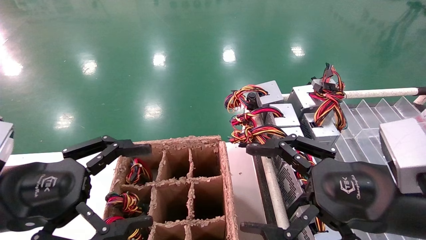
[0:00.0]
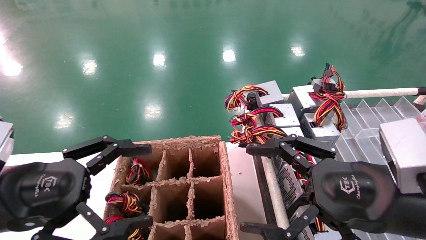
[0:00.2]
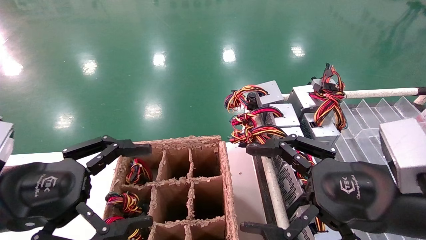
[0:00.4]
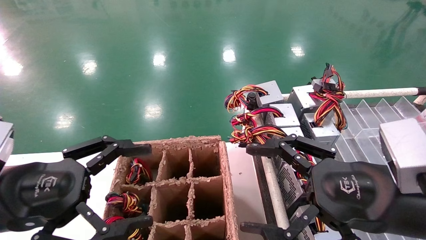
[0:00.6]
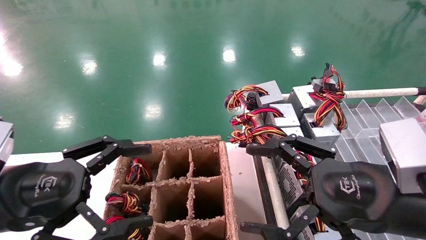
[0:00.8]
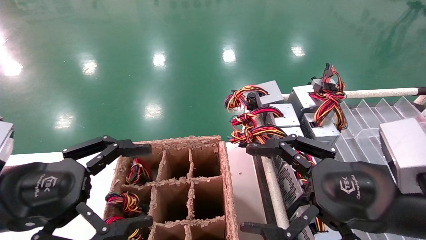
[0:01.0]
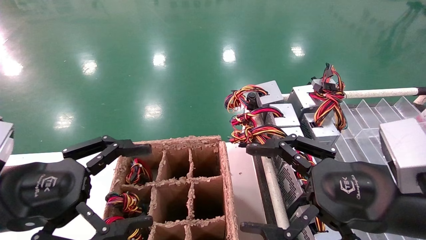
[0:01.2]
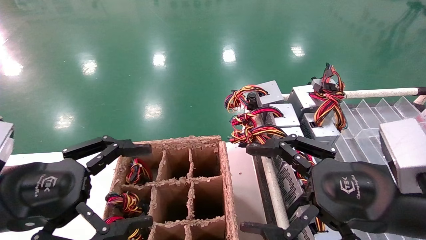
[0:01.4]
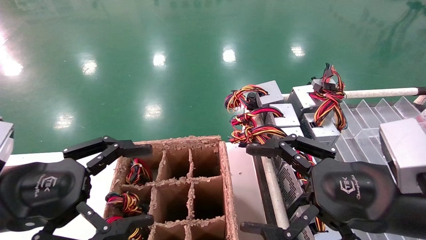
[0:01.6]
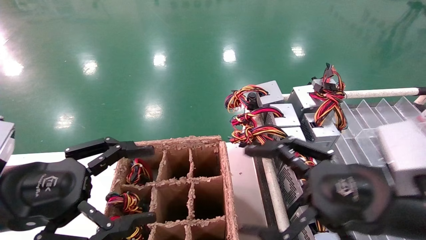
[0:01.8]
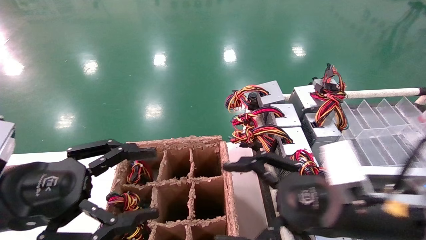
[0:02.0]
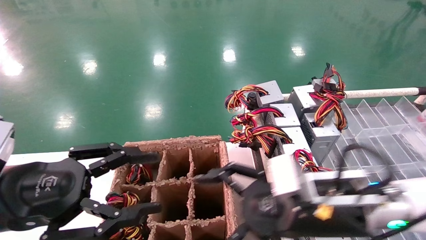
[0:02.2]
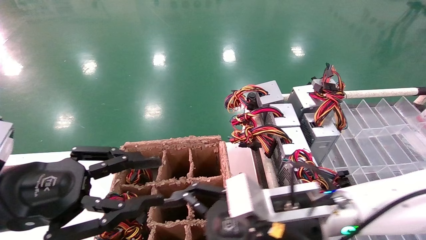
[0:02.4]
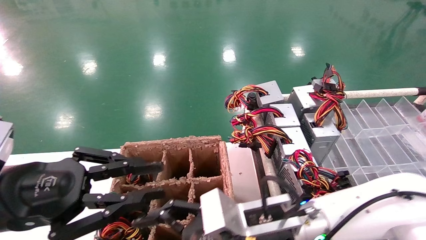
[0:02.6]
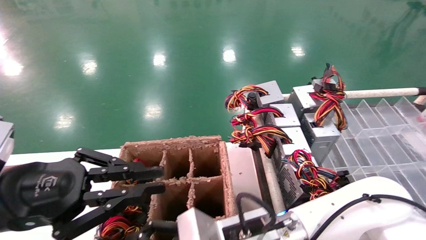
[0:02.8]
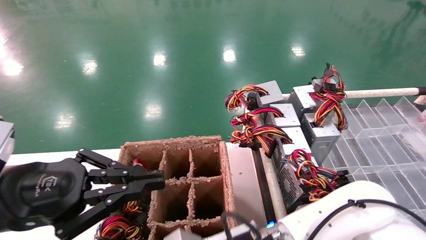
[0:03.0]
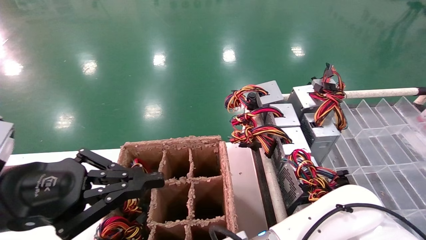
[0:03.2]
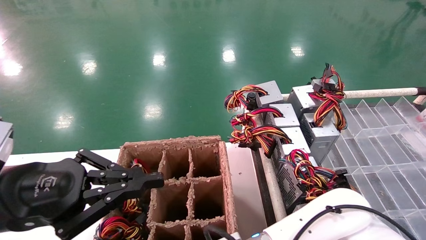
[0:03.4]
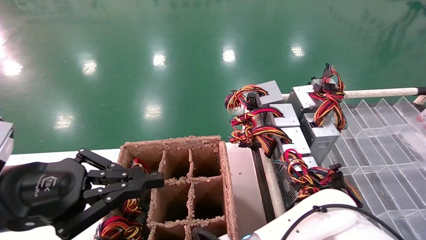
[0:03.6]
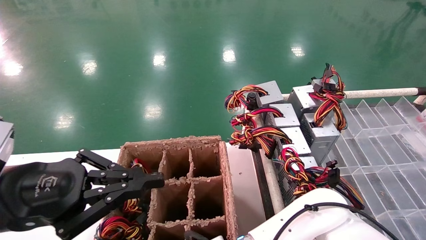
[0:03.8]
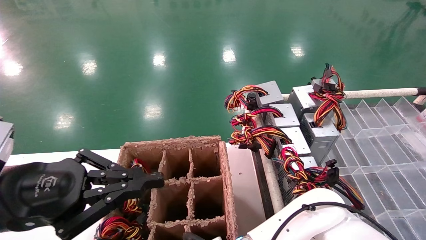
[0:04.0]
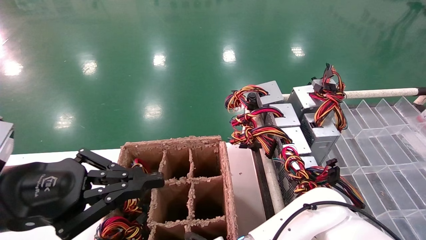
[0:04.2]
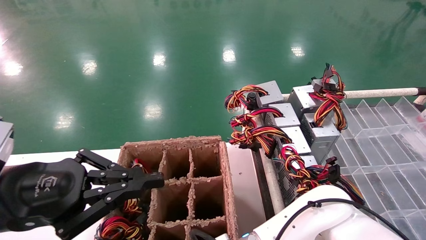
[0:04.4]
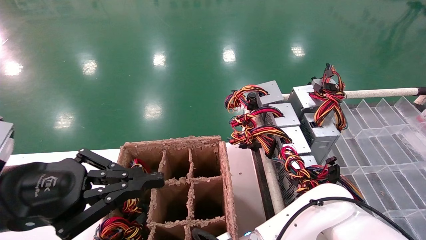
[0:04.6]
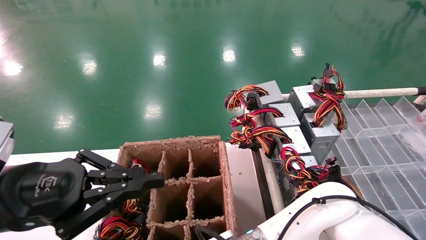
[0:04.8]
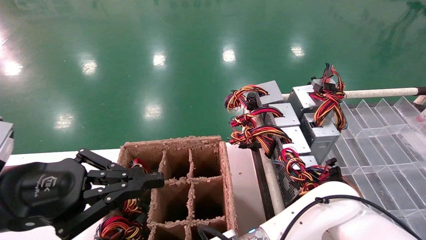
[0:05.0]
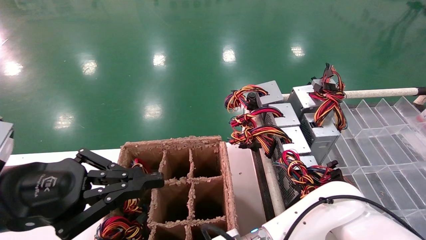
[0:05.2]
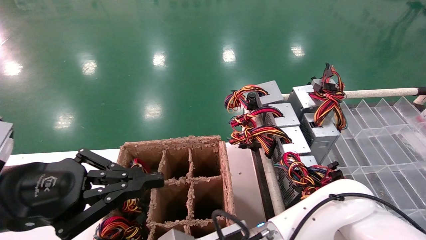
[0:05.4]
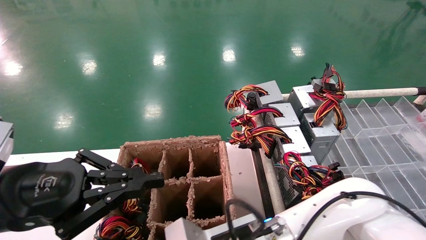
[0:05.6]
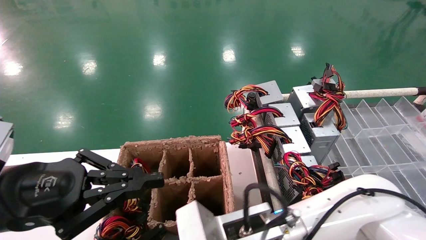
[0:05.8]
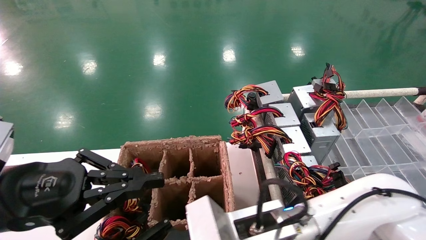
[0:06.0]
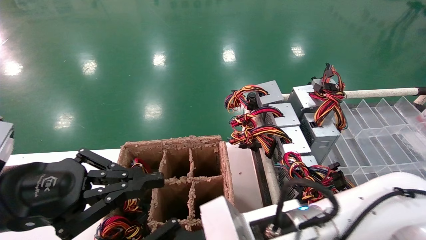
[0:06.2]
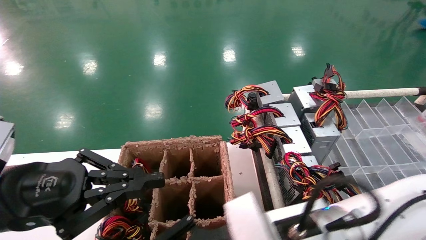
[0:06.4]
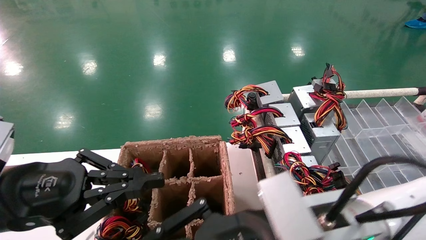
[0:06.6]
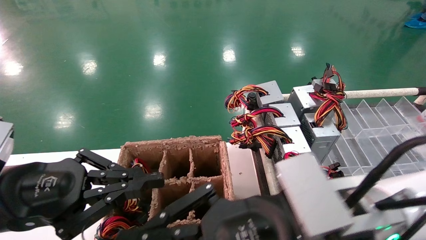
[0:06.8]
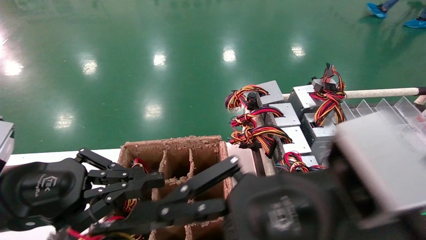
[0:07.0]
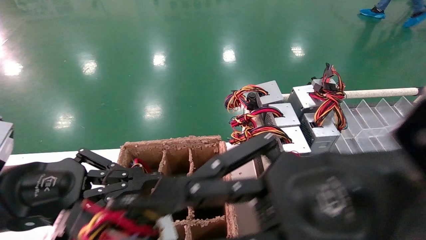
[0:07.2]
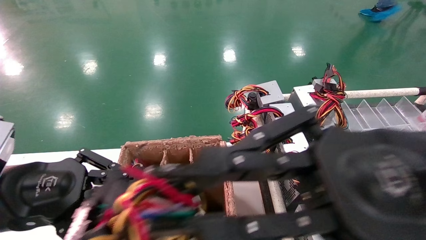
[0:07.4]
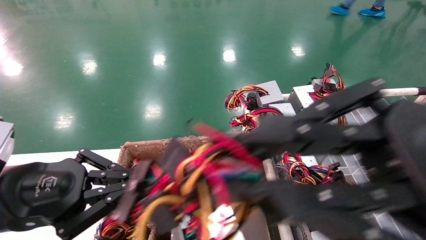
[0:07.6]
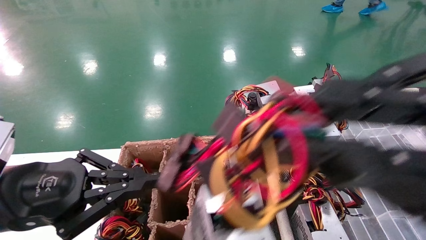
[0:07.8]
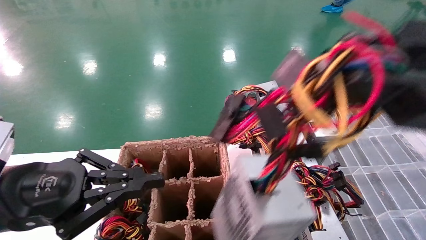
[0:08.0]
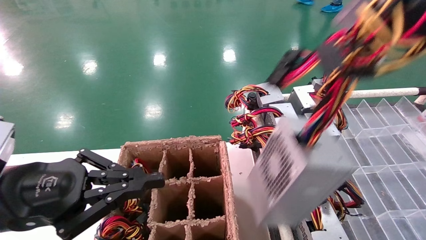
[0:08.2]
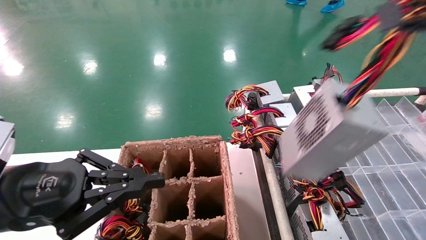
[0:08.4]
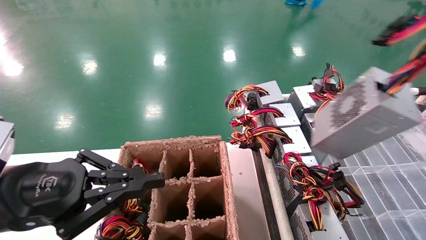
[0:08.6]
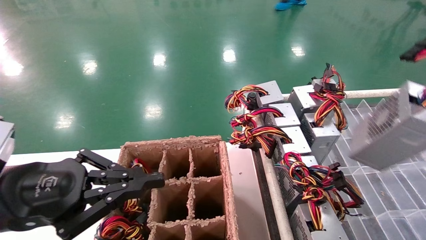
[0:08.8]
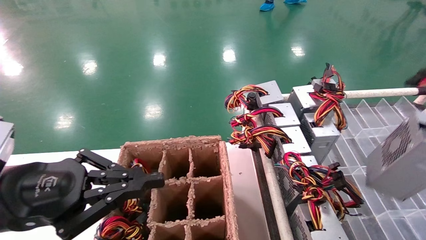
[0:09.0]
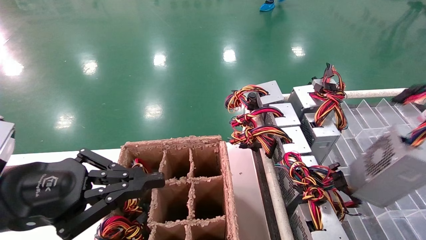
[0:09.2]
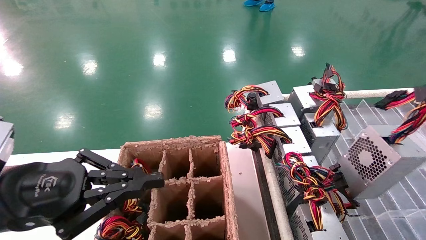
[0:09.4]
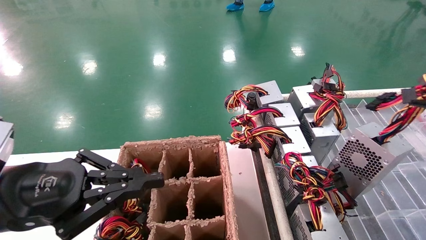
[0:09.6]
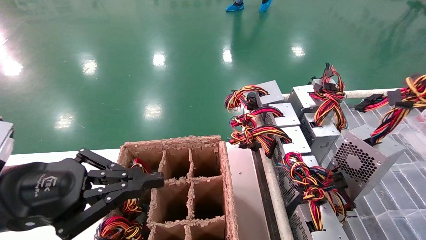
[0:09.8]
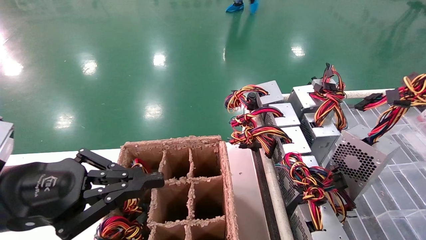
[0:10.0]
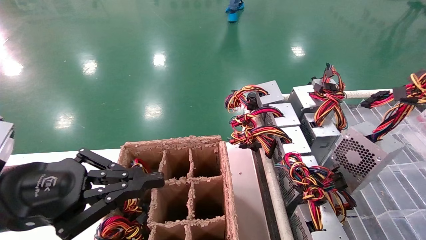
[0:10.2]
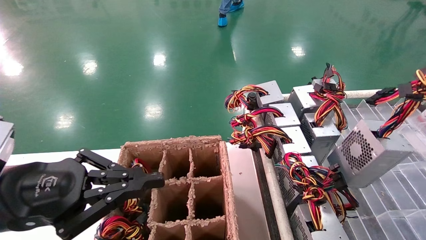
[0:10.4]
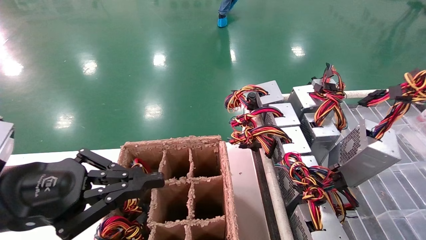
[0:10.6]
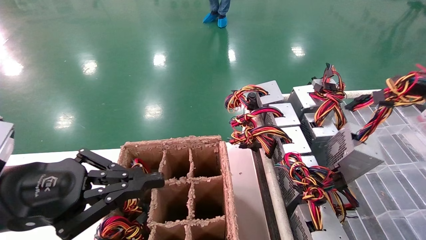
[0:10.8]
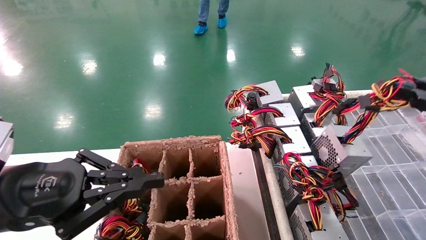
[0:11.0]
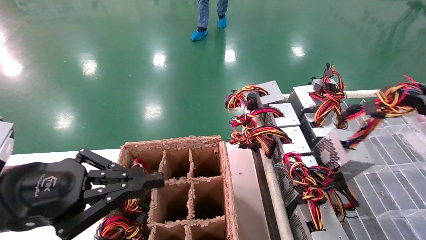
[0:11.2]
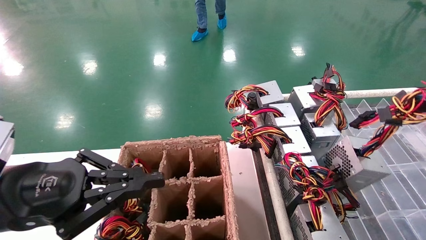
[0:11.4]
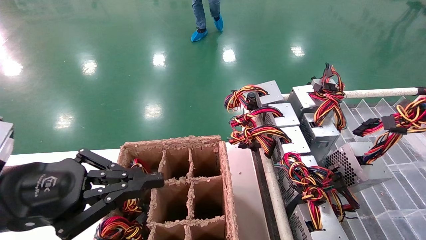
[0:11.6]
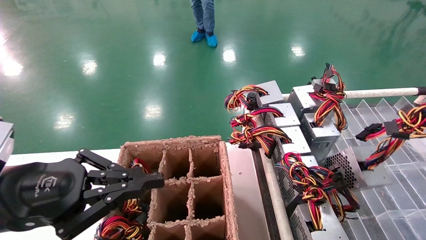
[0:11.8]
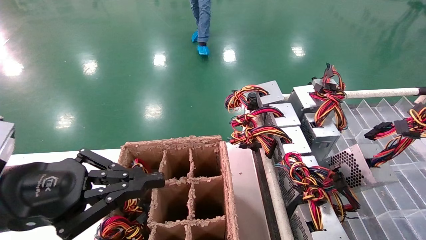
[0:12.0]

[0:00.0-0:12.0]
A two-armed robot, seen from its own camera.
Step, 0:02.2 to 0:05.0: Grab the main unit power supply from the containment box.
0:00.0 to 0:01.6: Both grippers stay put.
0:01.6 to 0:03.0: The right gripper heads to the left and downward, covering approximately 25 cm. The left gripper closes its fingers.
0:03.0 to 0:04.4: The right gripper moves some 5 cm, and closes up.
0:04.4 to 0:06.0: The right gripper moves upward, roughly 10 cm, and closes its fingers.
0:06.0 to 0:07.6: The right gripper shifts some 25 cm upward, to the right and backward.
0:07.6 to 0:09.0: The right gripper moves to the right, some 25 cm.
0:09.0 to 0:10.4: The right gripper goes approximately 10 cm forward and downward.
0:10.4 to 0:12.0: The grippers move only a little.

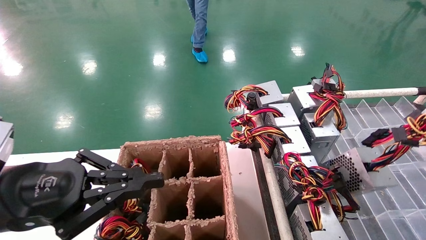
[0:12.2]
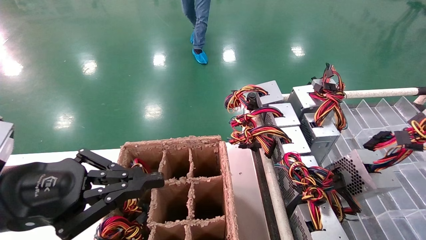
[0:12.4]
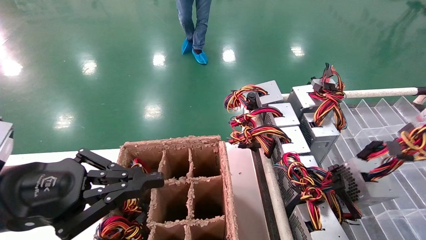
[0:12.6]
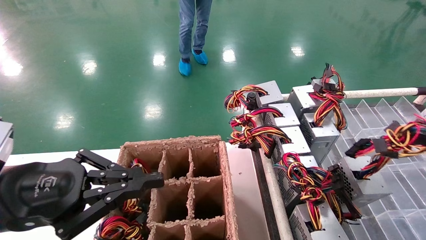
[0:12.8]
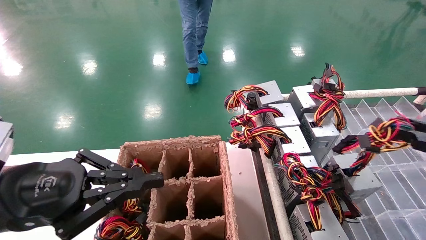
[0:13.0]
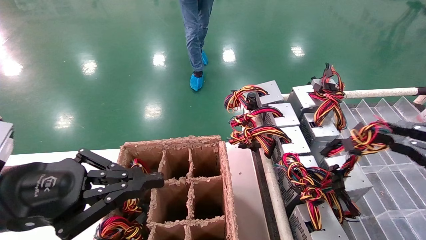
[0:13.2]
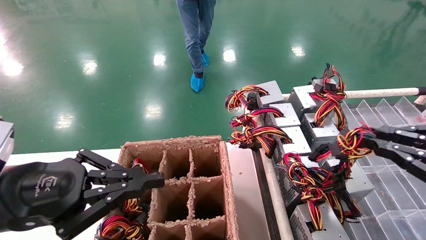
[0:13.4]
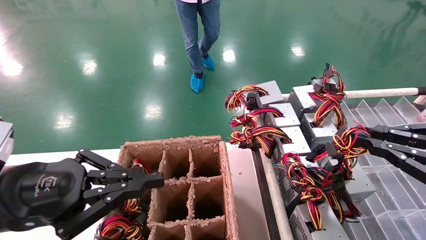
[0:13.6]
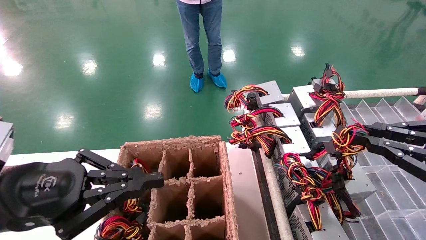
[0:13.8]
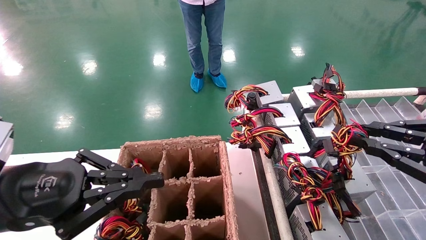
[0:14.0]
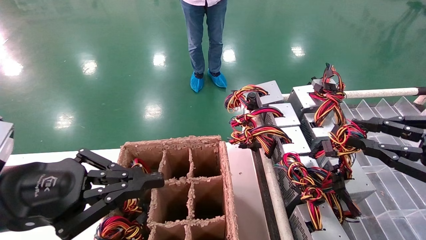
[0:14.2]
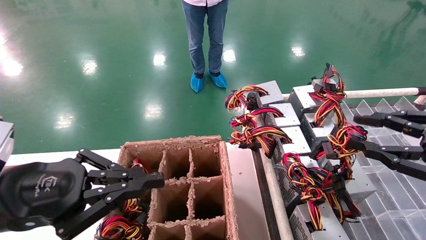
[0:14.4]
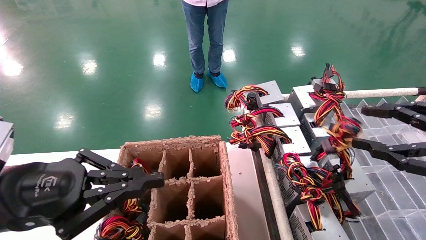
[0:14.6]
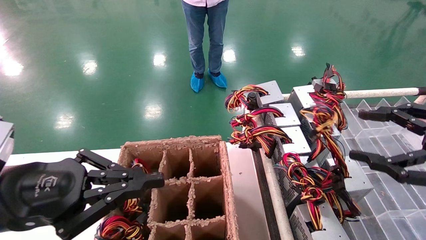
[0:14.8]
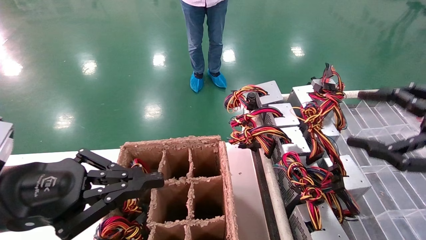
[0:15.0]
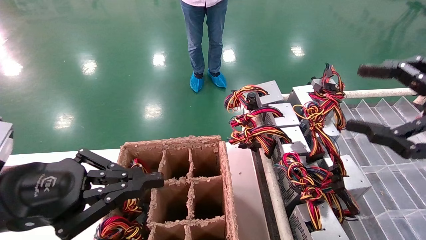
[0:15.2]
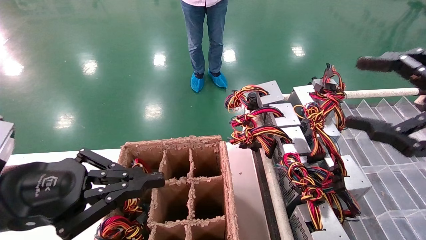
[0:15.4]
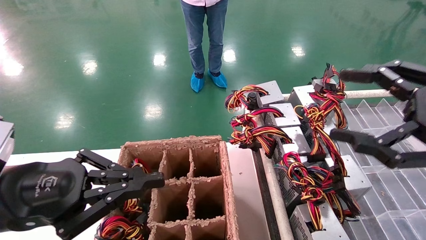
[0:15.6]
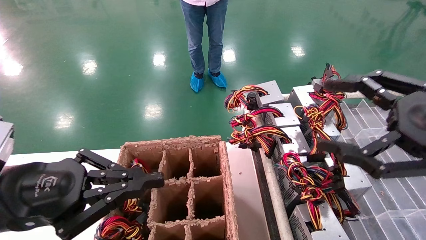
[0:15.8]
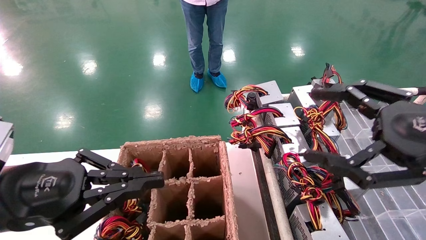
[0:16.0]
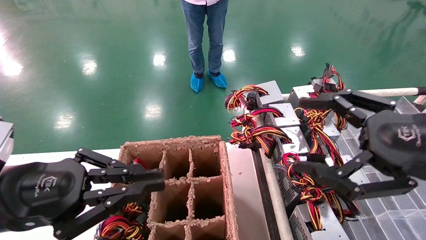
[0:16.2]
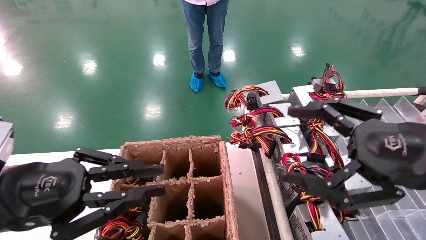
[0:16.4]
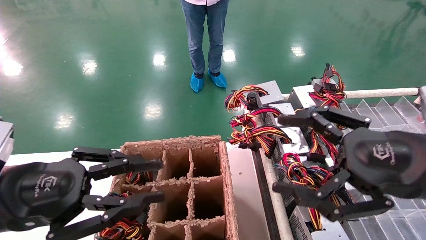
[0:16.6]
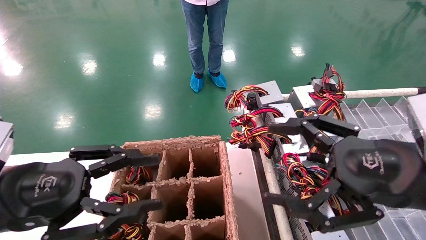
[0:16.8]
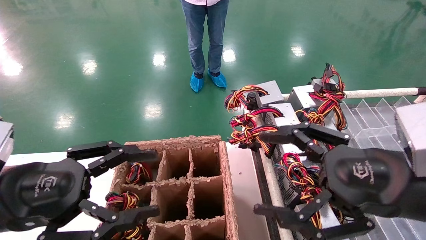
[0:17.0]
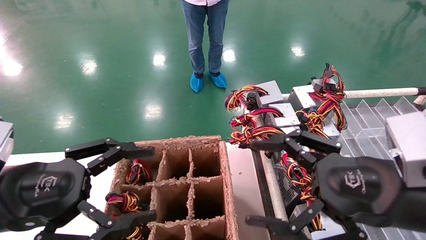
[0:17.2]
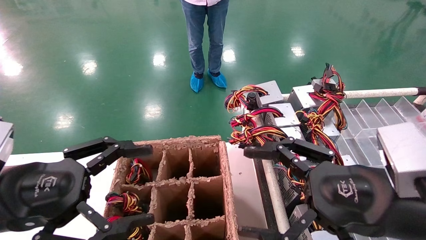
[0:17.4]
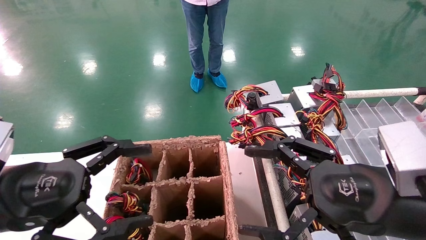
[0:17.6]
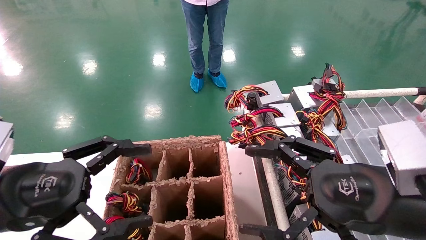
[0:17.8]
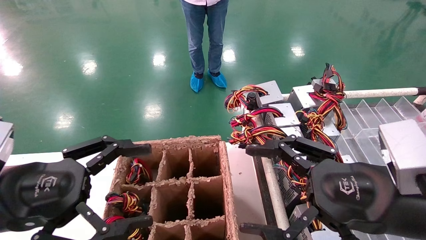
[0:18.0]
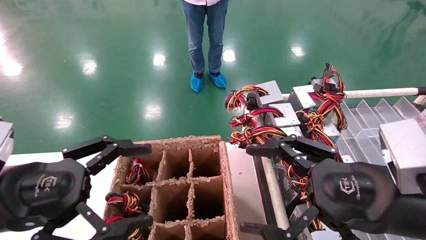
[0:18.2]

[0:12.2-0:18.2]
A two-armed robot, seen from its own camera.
0:12.2 to 0:13.8: The right gripper heads forward and to the left, covering approximately 10 cm.
0:13.8 to 0:15.2: The right gripper travels upward by approximately 5 cm, and opens its fingers.
0:15.2 to 0:16.6: The right gripper is displaced to the left and downward by roughly 10 cm.
0:16.6 to 0:18.2: The left gripper opens its fingers, while the right gripper shifts by some 5 cm.
